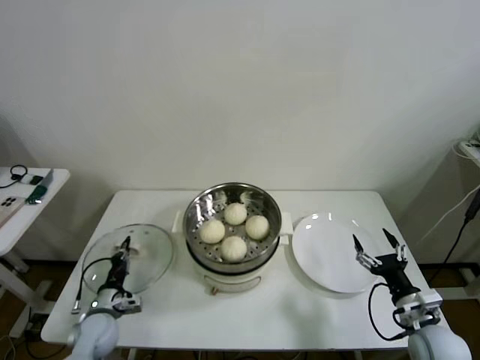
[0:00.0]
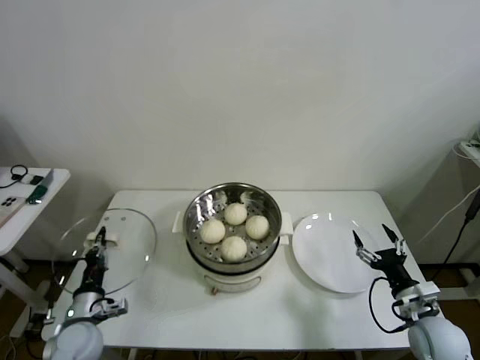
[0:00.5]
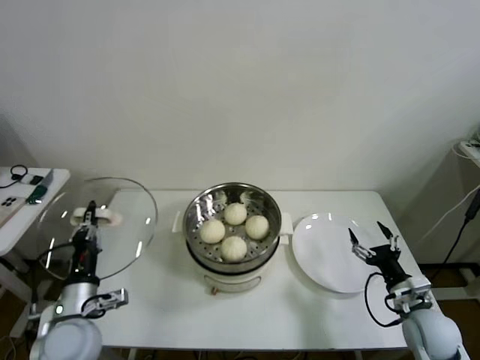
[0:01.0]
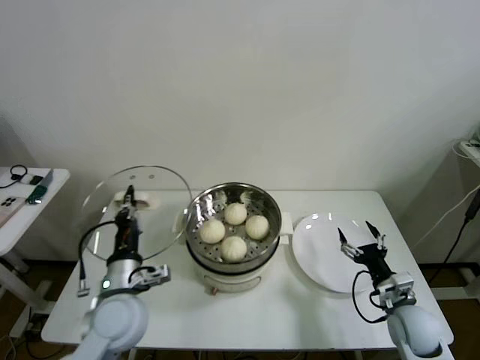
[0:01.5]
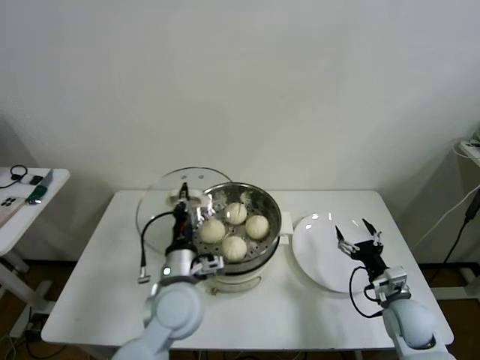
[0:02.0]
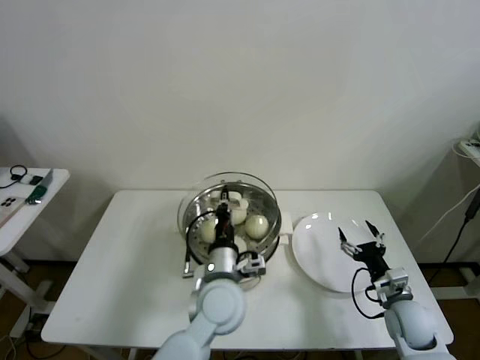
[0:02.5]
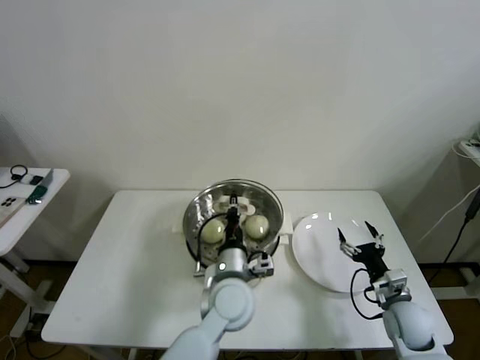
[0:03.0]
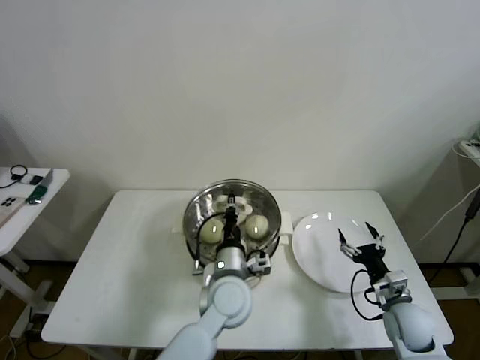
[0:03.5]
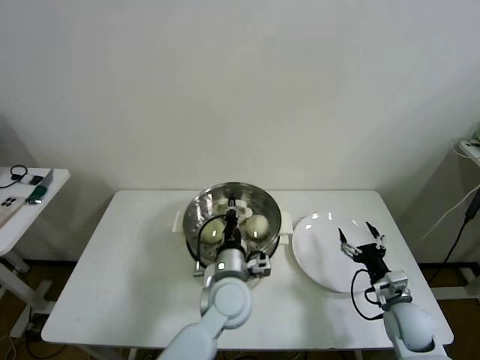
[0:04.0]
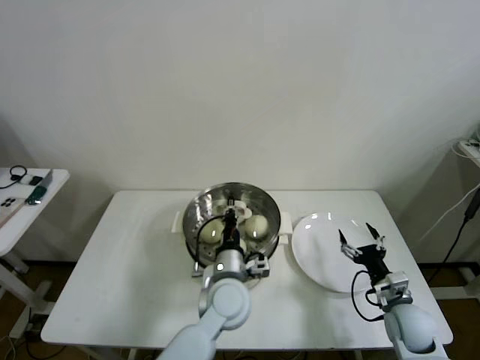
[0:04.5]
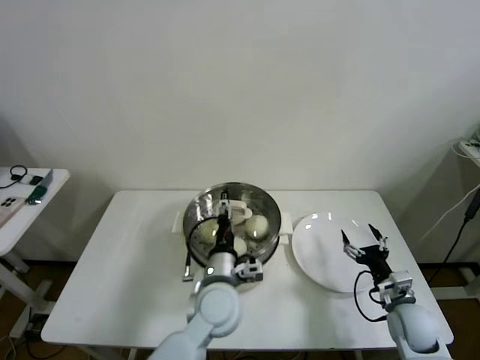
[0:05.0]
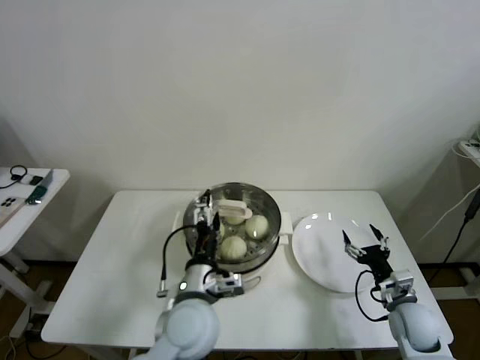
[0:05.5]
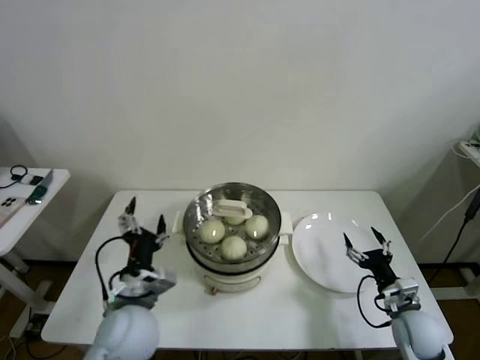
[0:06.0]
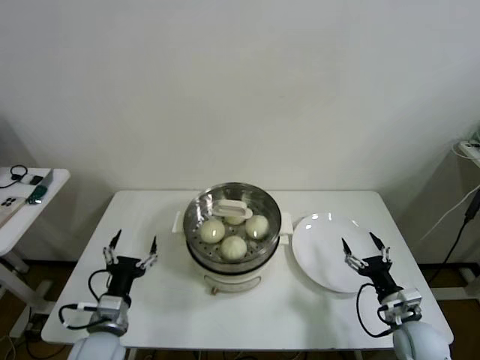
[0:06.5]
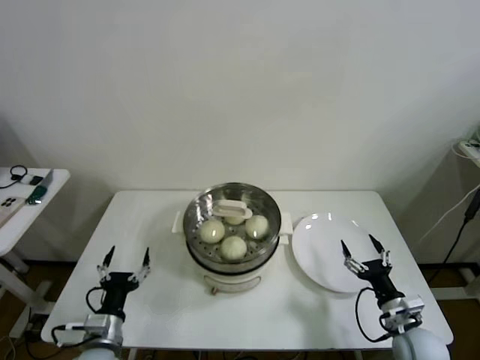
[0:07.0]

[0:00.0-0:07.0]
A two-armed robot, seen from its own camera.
Task of the whole recording: take steamed baozi put them in steamer then cover it.
Step, 0:00.0 to 0:04.5: Place the pot lid on the steamer with left gripper.
0:00.0 to 0:02.0: The left gripper moves to the right and upward, about 30 cm. Meanwhile the right gripper goes approximately 5 cm forward.
0:02.0 to 0:03.5: The left gripper moves to the right, roughly 10 cm.
0:03.5 to 0:05.0: The left gripper opens.
0:05.0 to 0:07.0: The left gripper shifts roughly 25 cm to the left.
